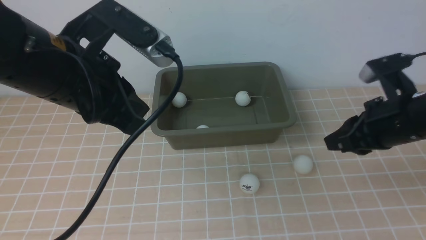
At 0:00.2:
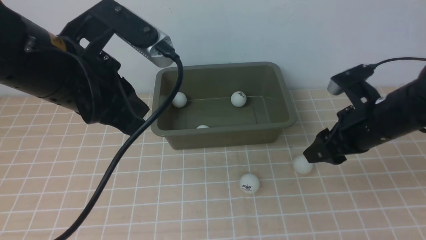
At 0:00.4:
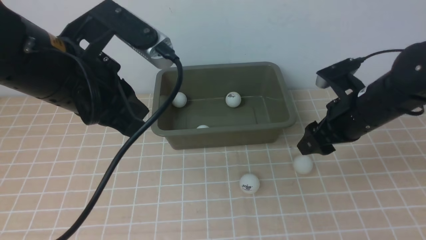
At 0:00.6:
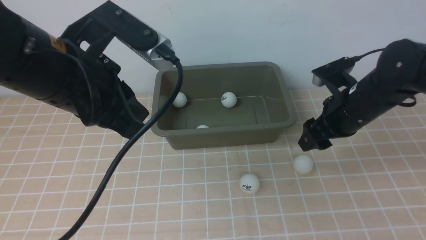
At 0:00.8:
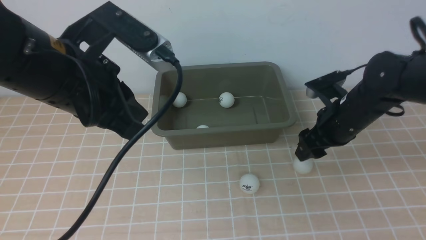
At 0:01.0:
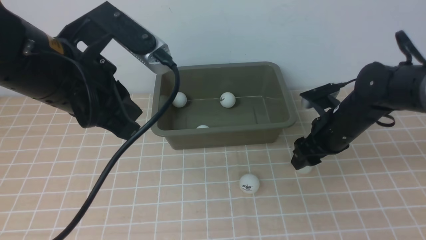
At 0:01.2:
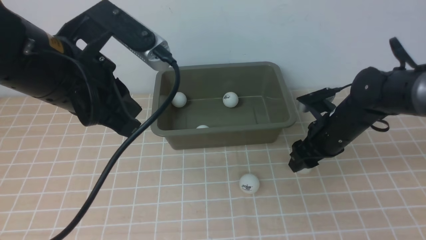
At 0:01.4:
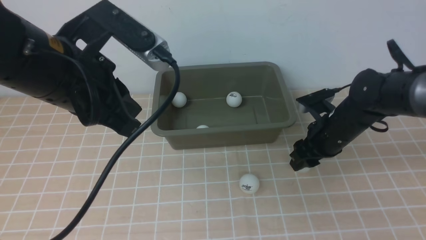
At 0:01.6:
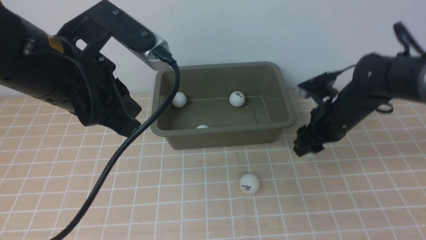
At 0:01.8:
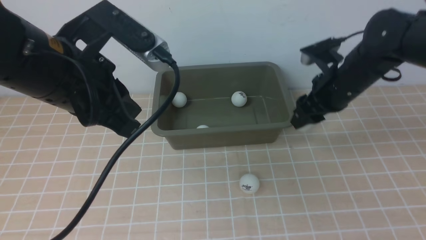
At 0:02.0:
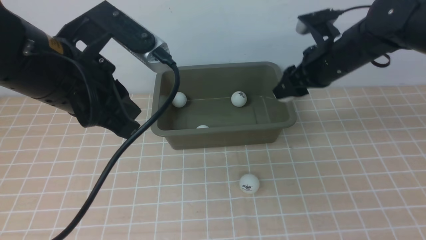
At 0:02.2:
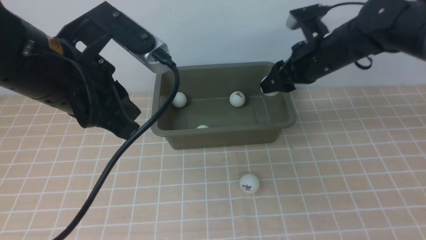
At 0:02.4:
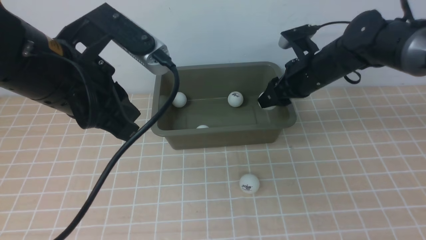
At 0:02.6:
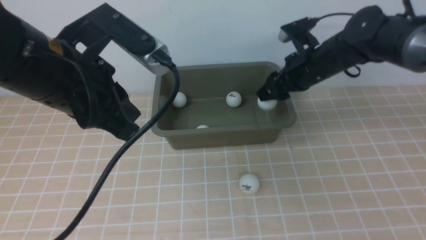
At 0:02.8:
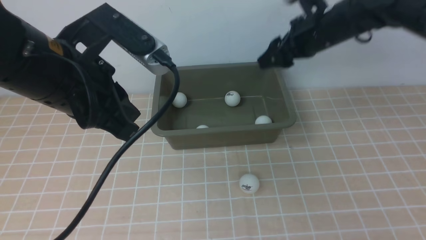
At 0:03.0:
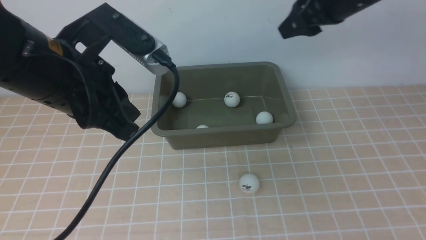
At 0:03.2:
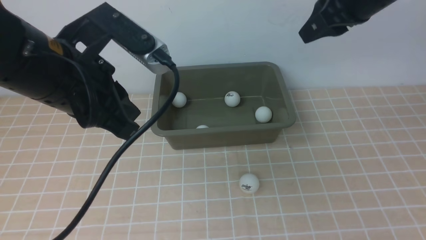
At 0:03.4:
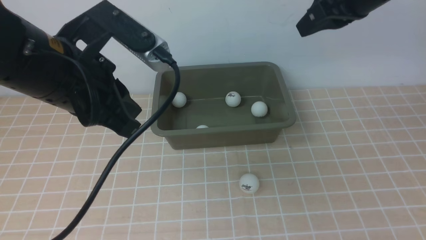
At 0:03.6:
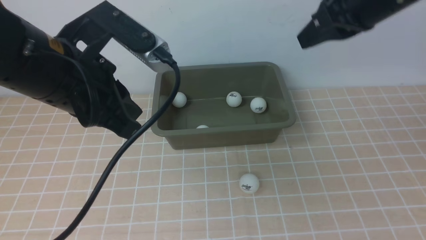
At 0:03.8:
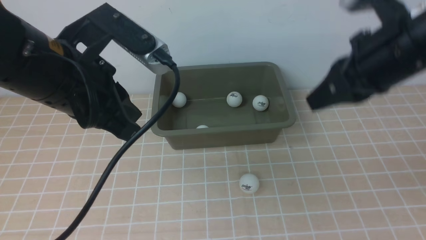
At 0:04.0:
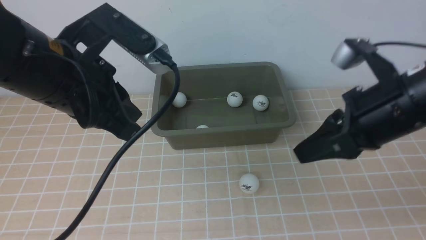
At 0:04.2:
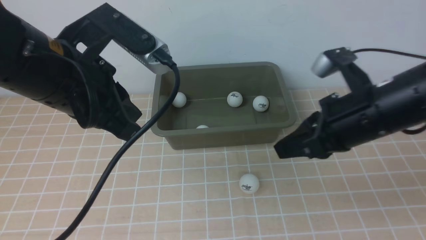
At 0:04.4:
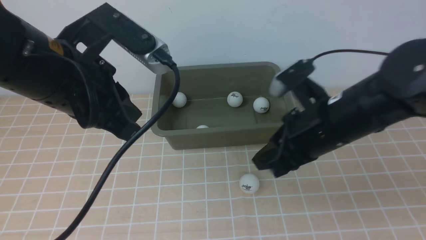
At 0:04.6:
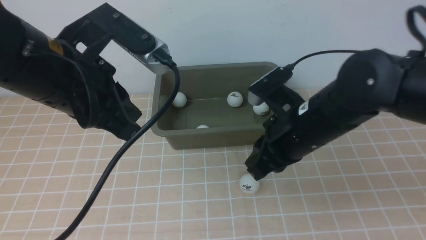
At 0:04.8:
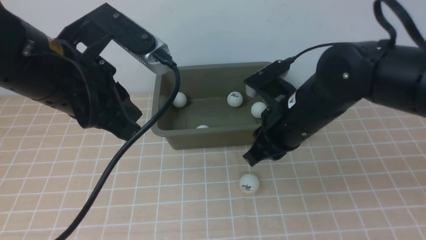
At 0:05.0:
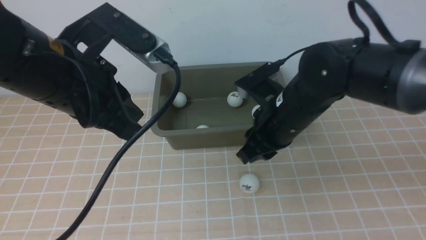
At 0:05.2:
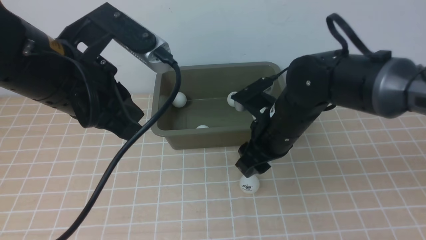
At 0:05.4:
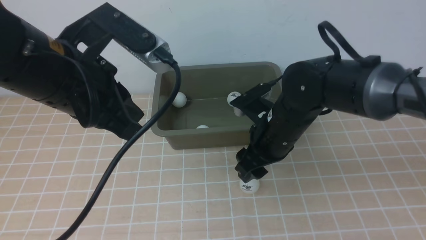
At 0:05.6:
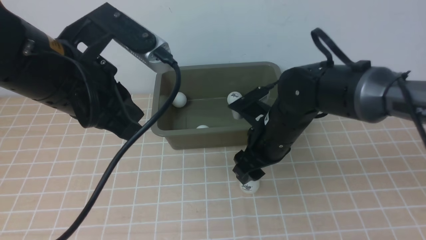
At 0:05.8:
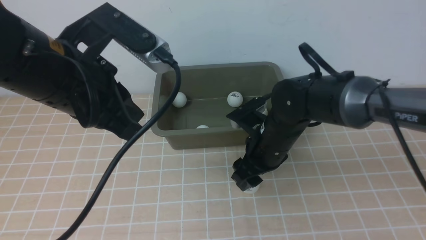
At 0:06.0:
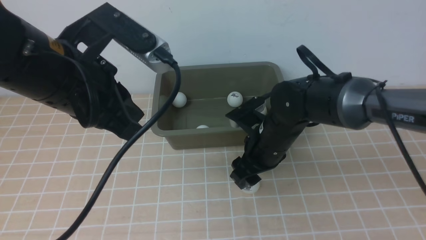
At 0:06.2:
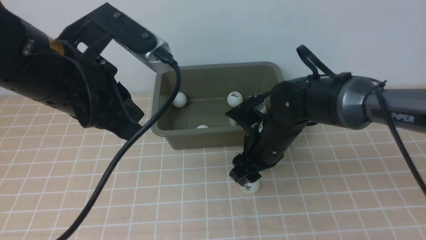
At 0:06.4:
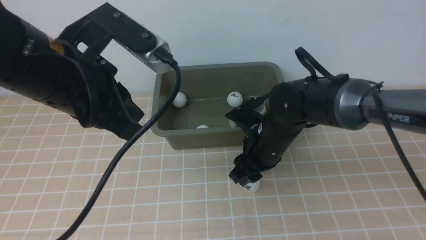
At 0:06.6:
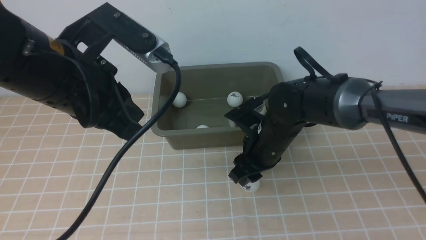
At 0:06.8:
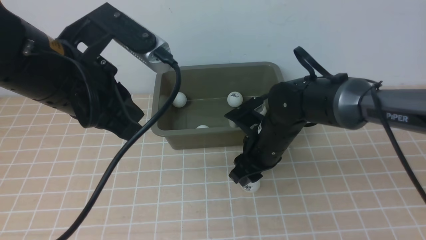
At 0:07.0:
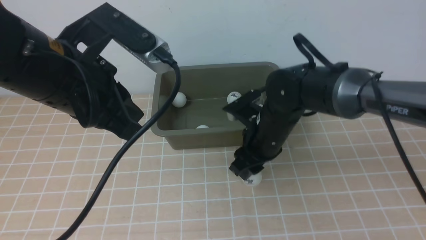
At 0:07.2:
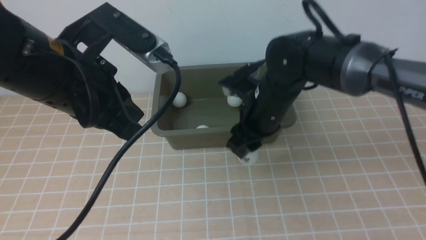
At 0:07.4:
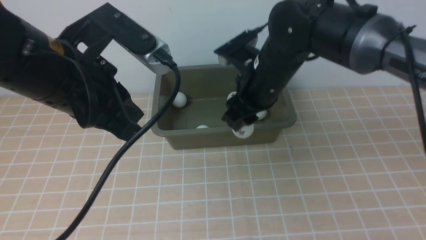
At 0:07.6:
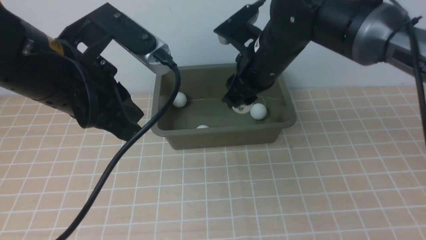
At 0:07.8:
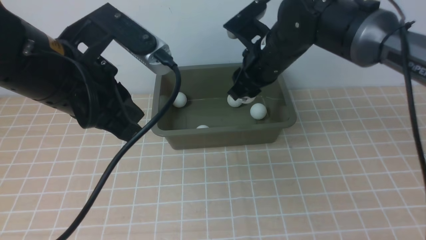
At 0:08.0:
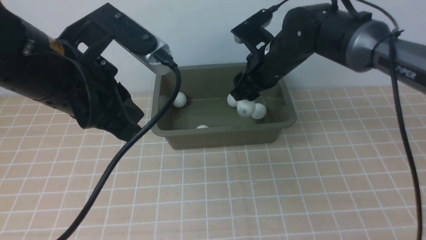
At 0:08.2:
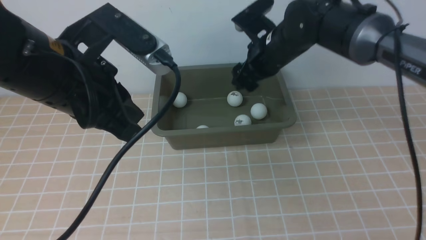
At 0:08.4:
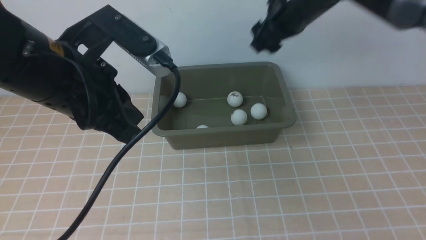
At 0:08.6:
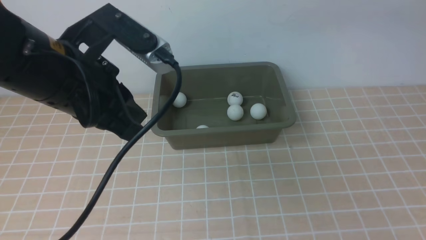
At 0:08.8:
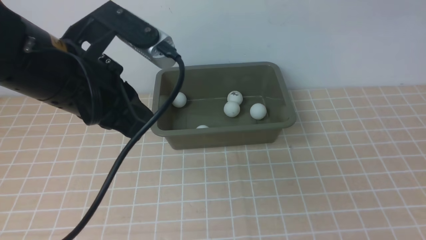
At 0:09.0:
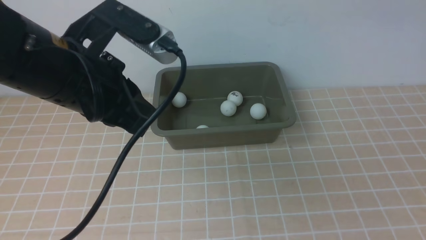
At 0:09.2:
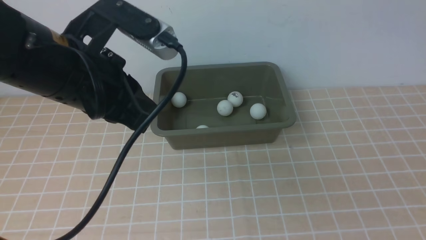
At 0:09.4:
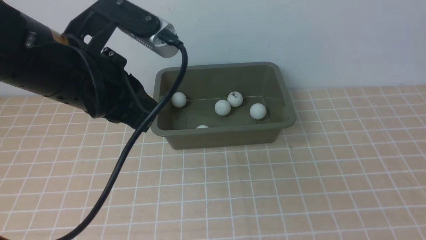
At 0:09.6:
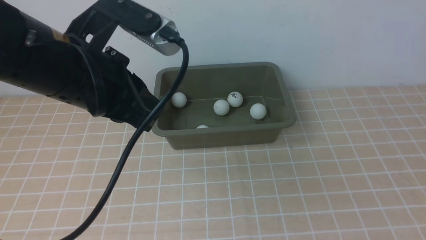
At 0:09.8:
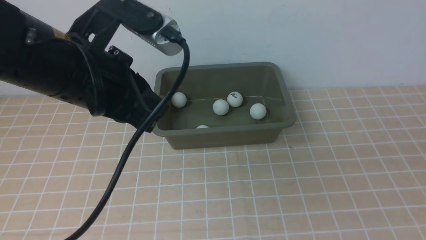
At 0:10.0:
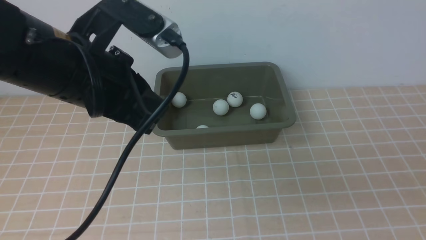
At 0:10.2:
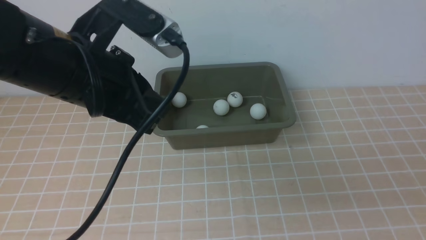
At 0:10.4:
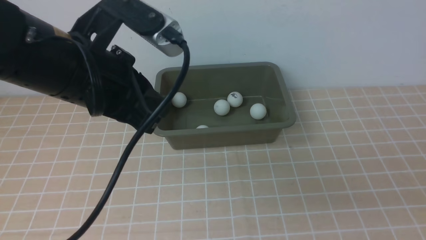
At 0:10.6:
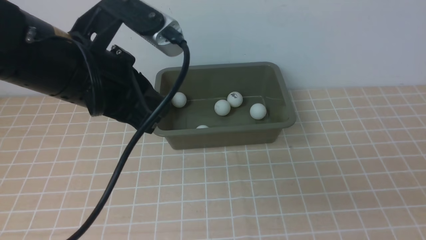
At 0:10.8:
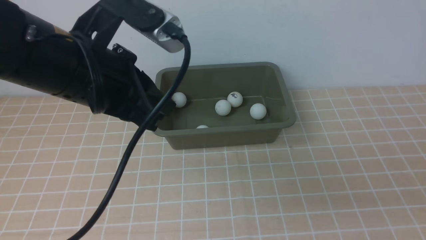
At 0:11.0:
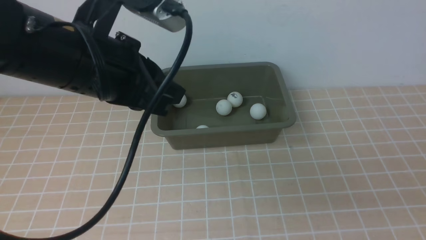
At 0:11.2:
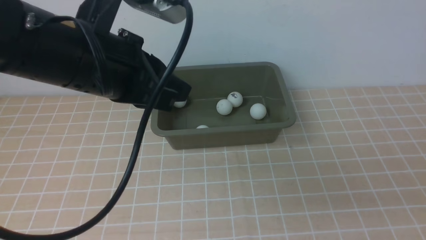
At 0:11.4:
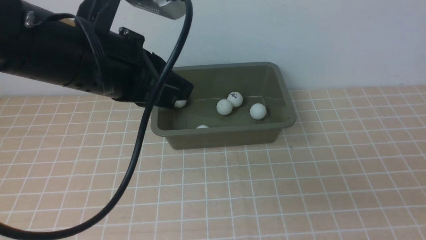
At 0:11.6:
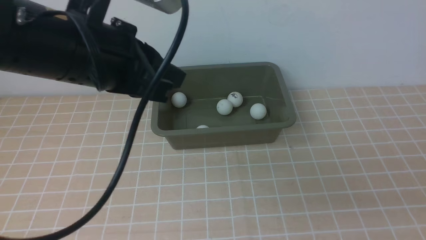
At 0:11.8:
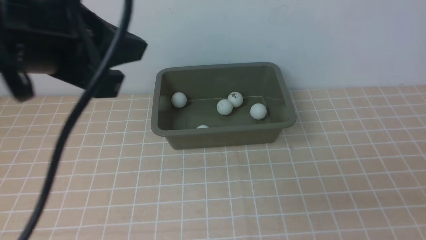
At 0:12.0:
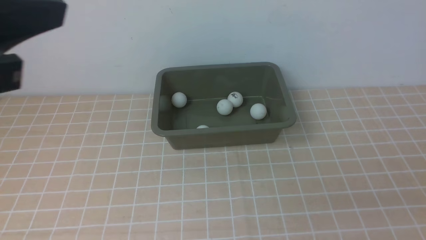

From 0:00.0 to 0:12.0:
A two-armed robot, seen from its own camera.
Step, from 0:00.0 to 0:02.0: use the right arm to clamp the table tennis ball closest to it.
Step, from 0:02.4 to 0:03.0: use the right arm to put the table tennis ball into the box.
Step, from 0:03.2 to 0:06.8: use the right arm to clamp the table tennis ball closest to it.
Step, from 0:07.2 to 0:08.6: use the right arm to put the table tennis ball into the box.
From 0:00.0 to 0:01.6: The right gripper travels forward and downward by about 10 cm.
From 0:01.6 to 0:03.0: The right gripper moves upward, about 15 cm.
From 0:03.0 to 0:04.4: The right gripper goes roughly 15 cm backward and downward, and closes.
From 0:04.4 to 0:06.0: The right gripper shifts approximately 15 cm downward, forward and to the left, and opens.
From 0:06.0 to 0:07.6: The right gripper goes approximately 10 cm upward and forward.
From 0:07.6 to 0:09.0: The right gripper heads upward, to the right and backward, covering some 30 cm, and closes up.
From 0:09.0 to 0:10.4: The right gripper heads downward and backward, covering about 30 cm.
From 0:10.4 to 0:12.0: The left gripper shifts roughly 15 cm backward, upward and to the left.

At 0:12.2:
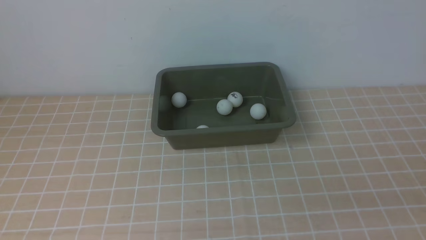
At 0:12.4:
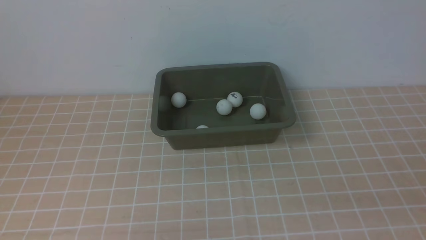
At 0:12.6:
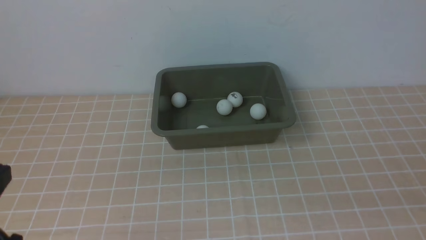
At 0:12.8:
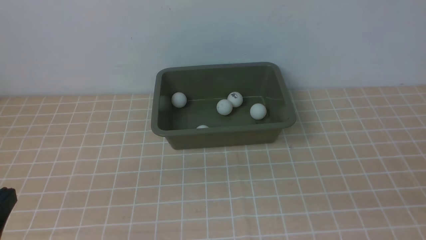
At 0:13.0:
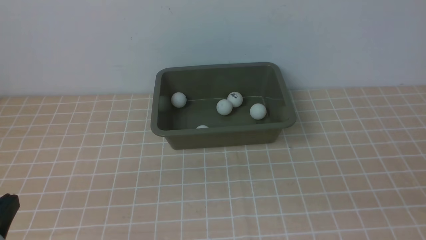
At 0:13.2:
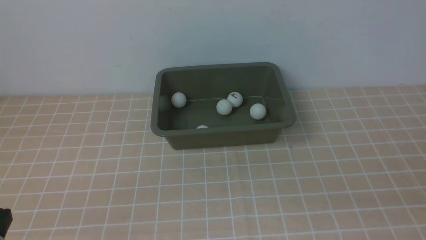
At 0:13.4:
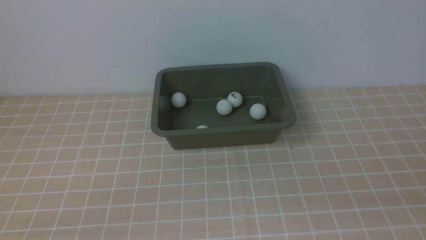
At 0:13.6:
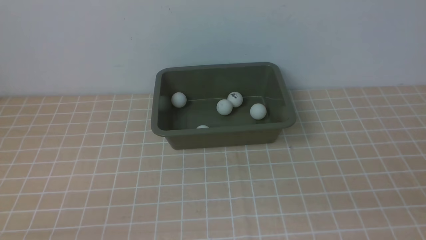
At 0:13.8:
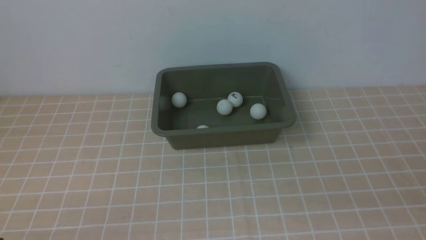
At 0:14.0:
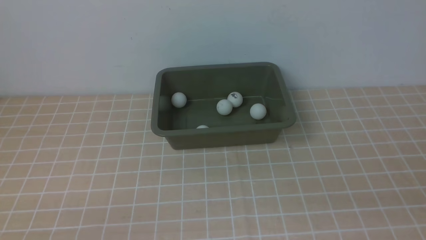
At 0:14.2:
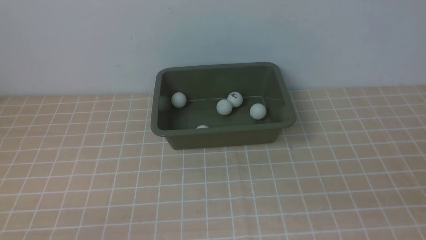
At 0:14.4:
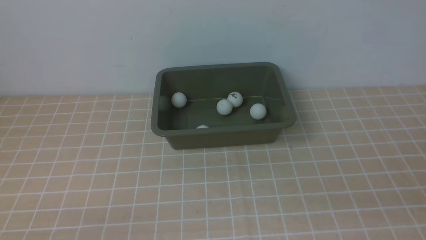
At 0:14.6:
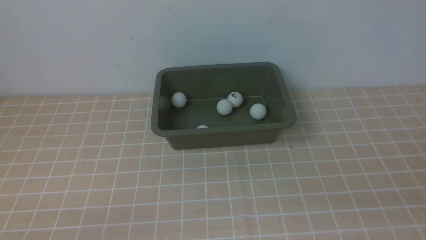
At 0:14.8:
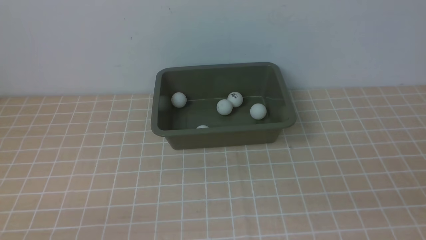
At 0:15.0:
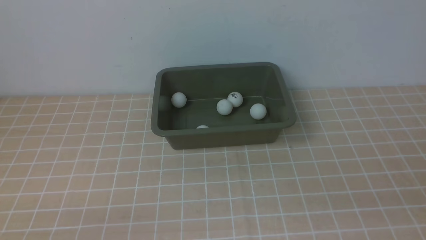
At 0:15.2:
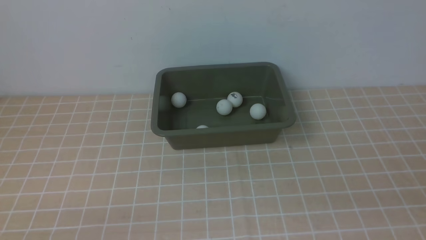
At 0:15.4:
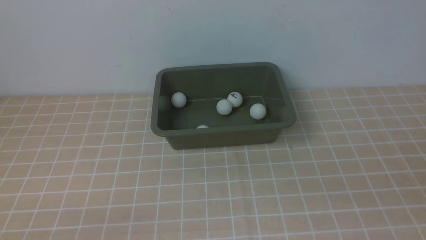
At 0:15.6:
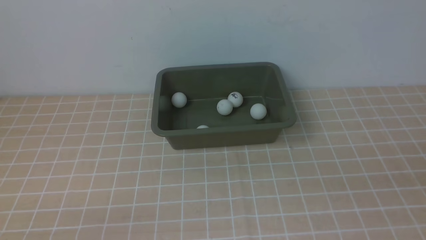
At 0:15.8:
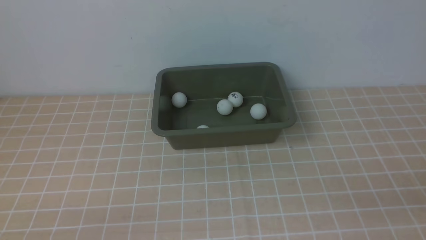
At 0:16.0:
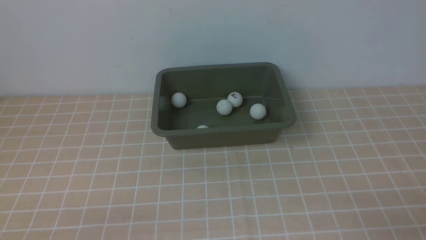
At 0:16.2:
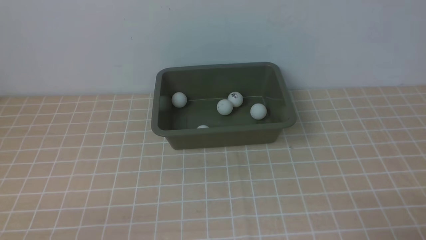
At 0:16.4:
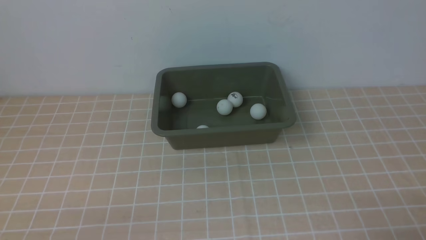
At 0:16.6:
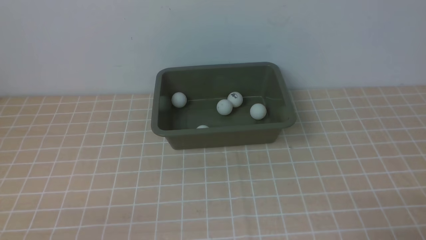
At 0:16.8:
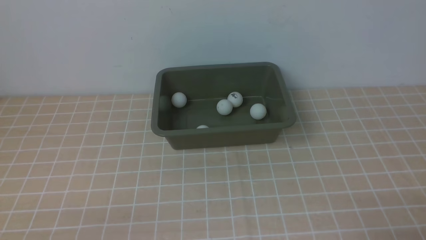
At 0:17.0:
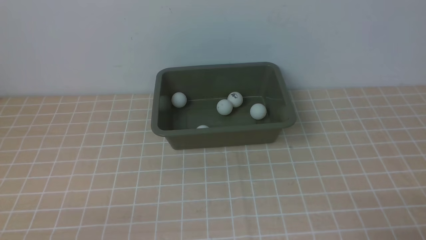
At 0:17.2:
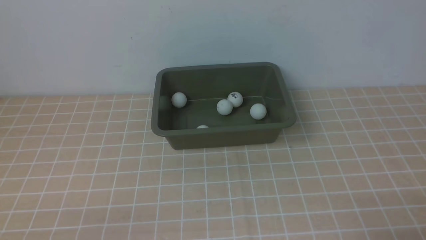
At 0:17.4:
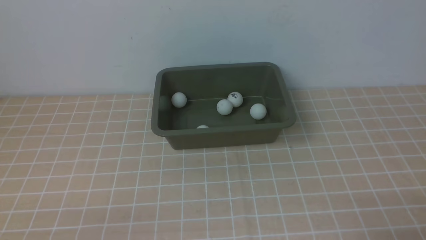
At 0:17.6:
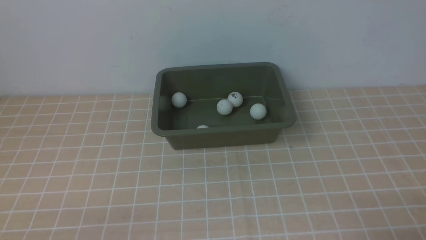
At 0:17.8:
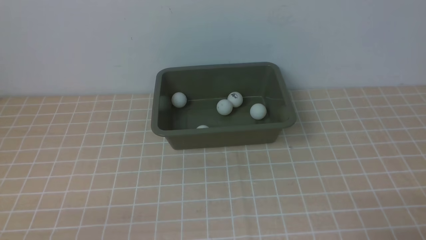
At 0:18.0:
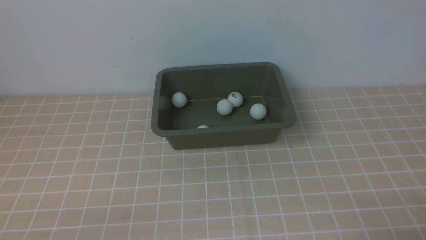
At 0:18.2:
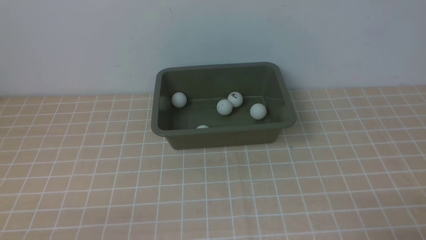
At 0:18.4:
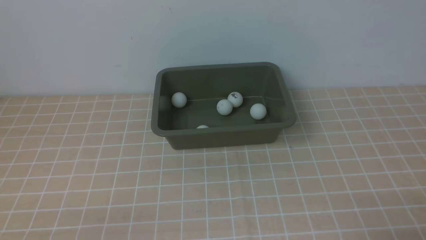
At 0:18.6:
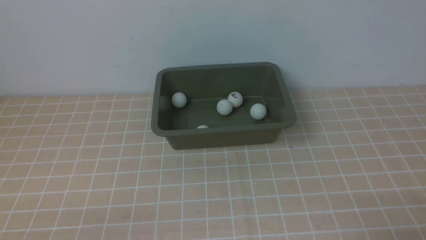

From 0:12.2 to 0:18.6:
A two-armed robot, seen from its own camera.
From 0:17.0 to 0:18.6: Both grippers stay about where they are.
